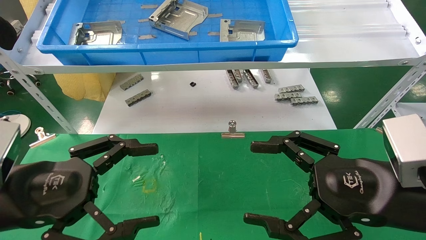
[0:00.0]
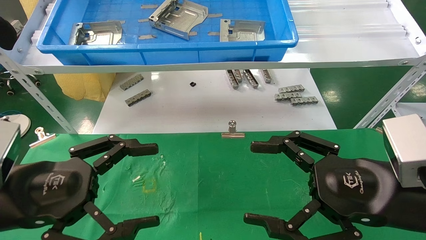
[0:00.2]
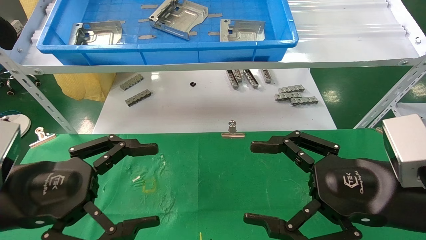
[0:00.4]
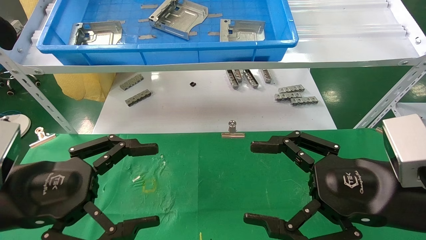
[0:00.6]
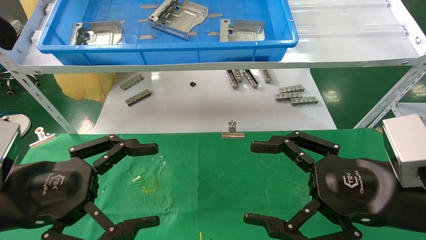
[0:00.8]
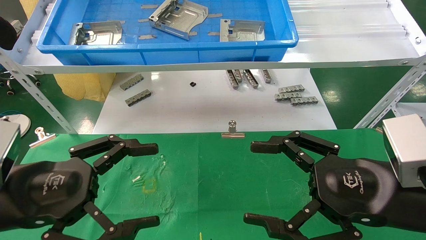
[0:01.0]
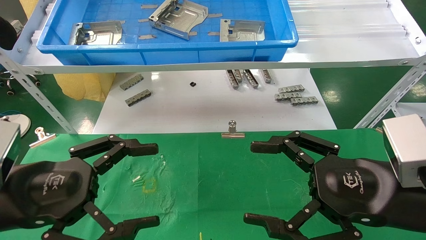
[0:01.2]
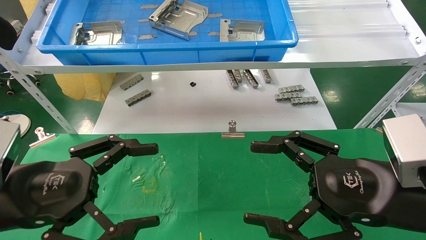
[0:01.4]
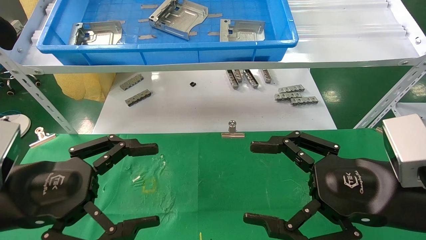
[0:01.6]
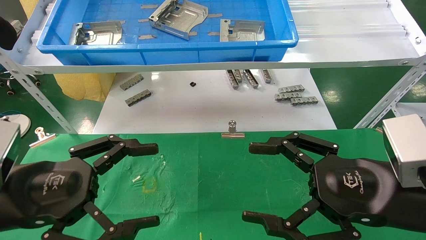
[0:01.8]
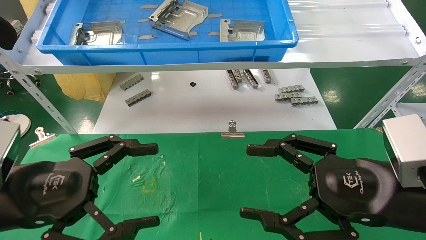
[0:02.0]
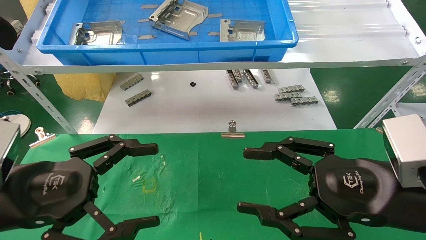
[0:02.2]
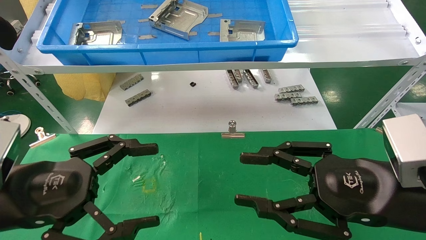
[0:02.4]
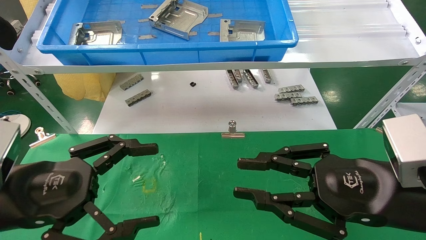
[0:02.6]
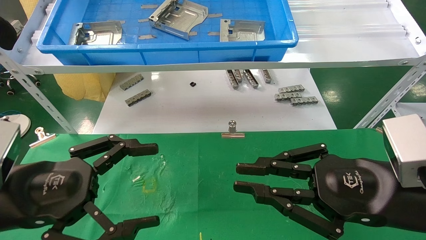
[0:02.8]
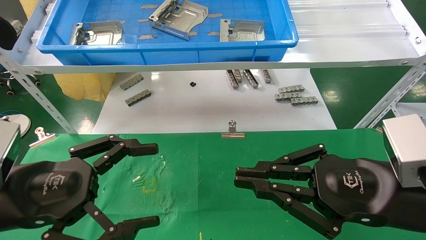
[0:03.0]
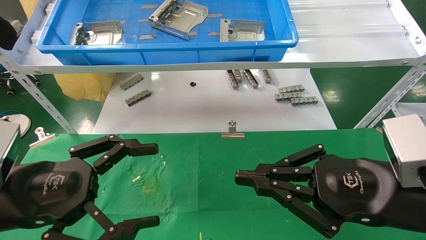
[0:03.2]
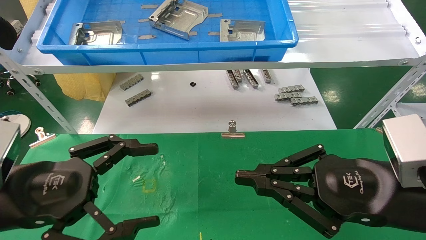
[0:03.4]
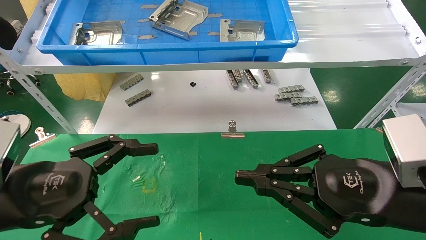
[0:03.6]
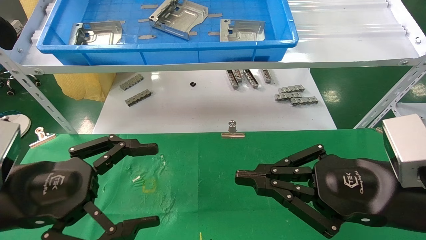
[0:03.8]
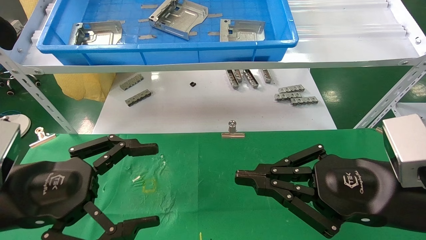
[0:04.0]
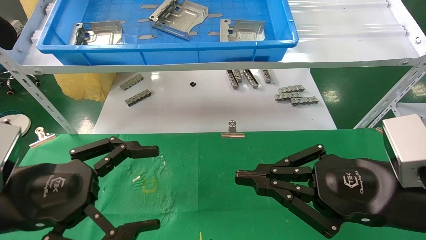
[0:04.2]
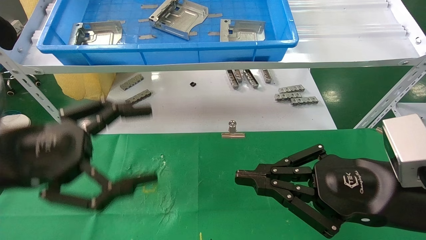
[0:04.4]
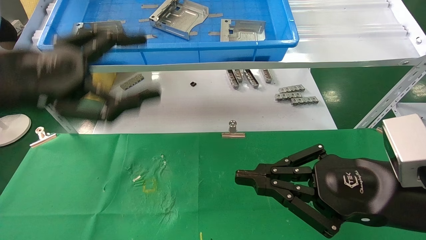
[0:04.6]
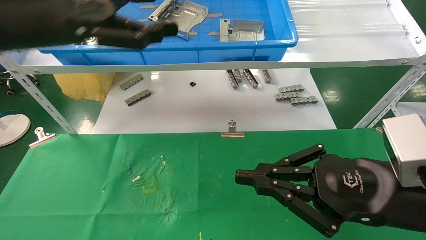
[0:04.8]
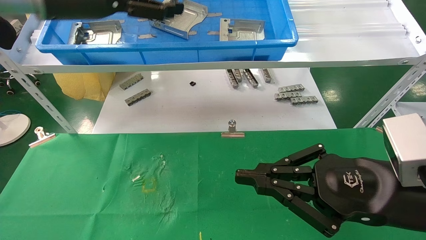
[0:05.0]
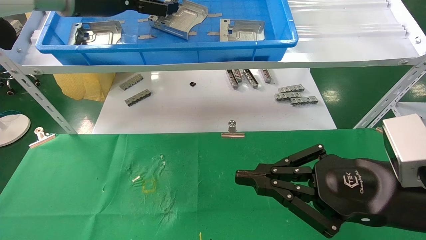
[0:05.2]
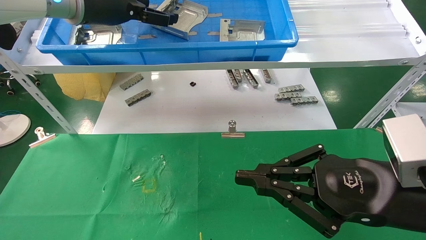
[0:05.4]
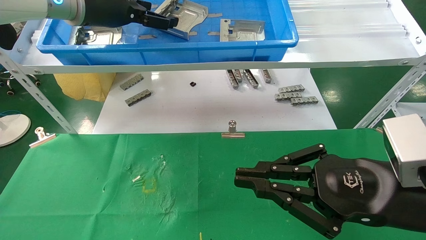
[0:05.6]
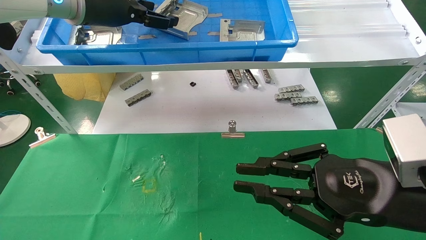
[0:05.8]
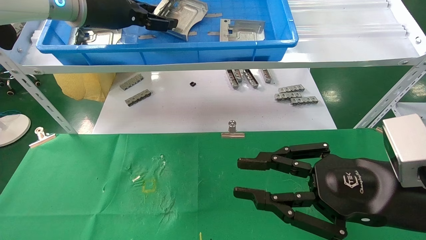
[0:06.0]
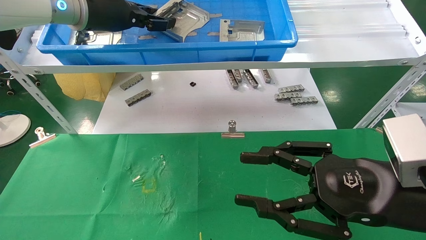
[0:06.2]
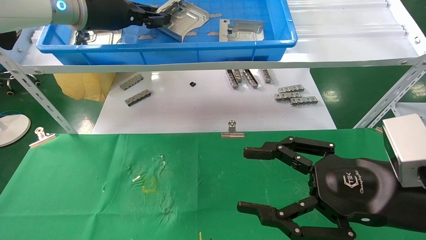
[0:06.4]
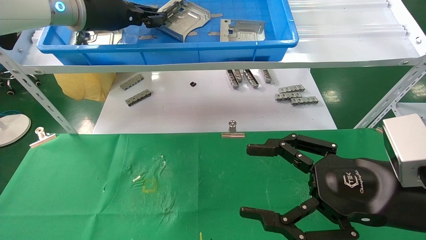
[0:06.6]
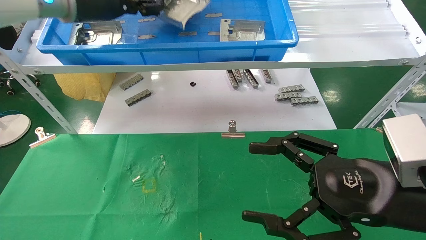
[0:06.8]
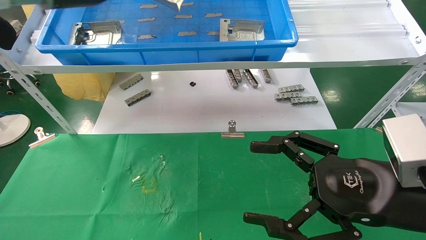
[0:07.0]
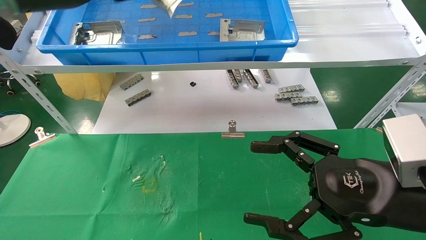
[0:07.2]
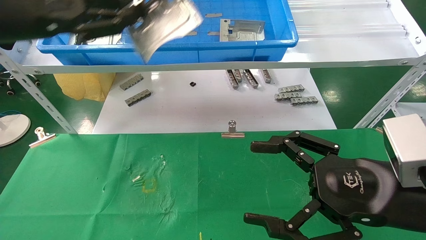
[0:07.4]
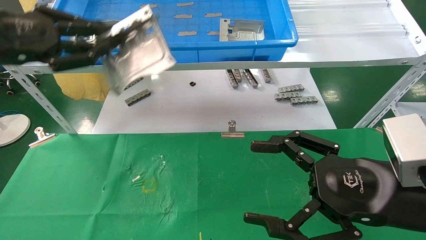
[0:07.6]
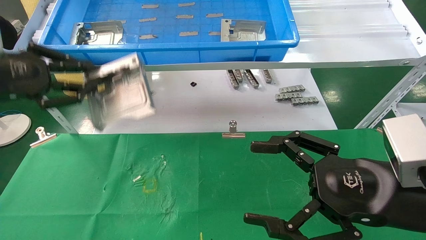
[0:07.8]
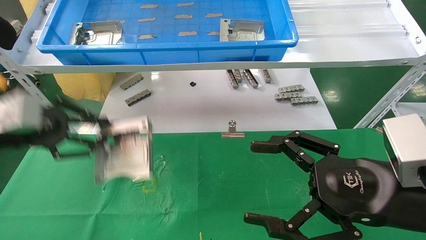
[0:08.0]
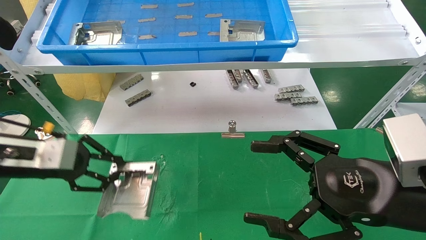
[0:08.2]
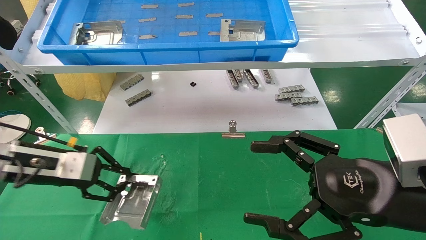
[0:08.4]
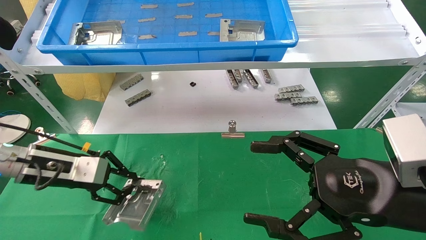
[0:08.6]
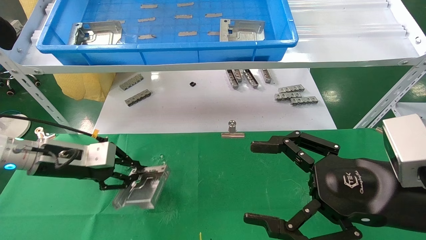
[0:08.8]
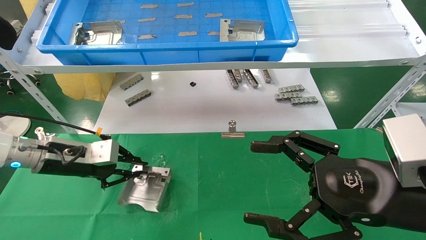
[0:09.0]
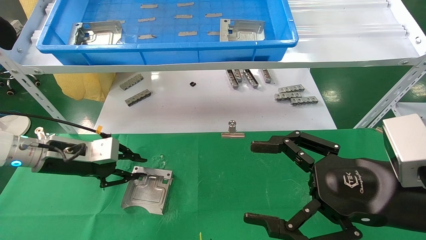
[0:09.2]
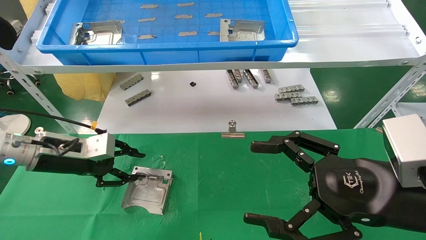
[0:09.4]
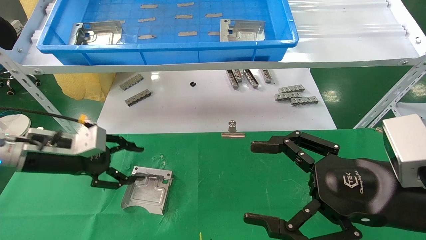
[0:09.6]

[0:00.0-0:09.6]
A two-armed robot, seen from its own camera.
Task of the whole recording: use the mechanical arm to pick up the parts and place them on the table.
Step, 0:04.4 to 0:06.4: Pick up the hard drive bracket from the feeding area.
Step, 0:06.6 to 0:09.6: Place the hard drive bracket into the box.
0:00.0 to 0:01.6: The two grippers keep their place.
0:01.6 to 0:03.2: The right gripper closes.
0:03.2 to 0:04.8: The left gripper travels upward and forward by about 20 cm.
0:04.8 to 0:06.4: The left gripper is displaced forward by roughly 10 cm, and closes up. Meanwhile the right gripper opens.
0:06.4 to 0:08.0: The right gripper opens up; the left gripper travels downward, to the left and backward by roughly 25 cm.
0:08.0 to 0:09.6: The left gripper is displaced downward and forward by approximately 10 cm, and opens up.

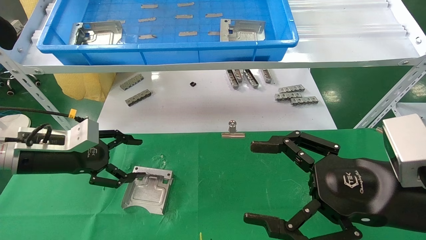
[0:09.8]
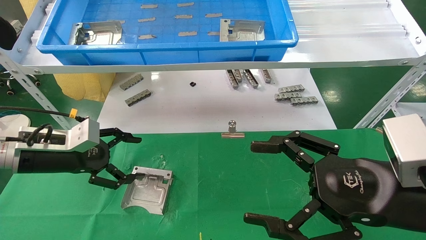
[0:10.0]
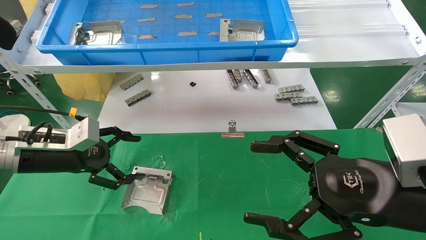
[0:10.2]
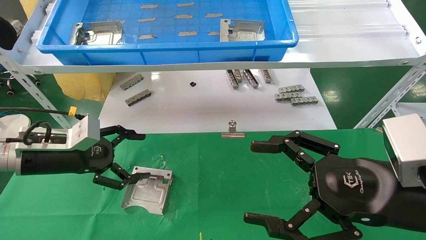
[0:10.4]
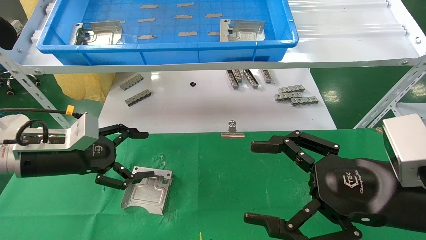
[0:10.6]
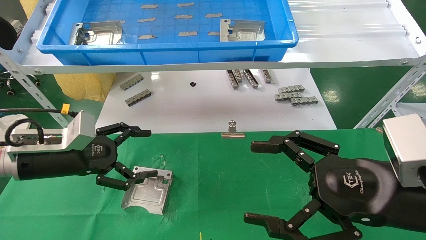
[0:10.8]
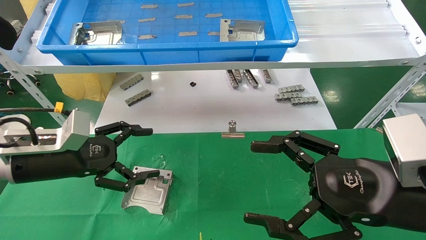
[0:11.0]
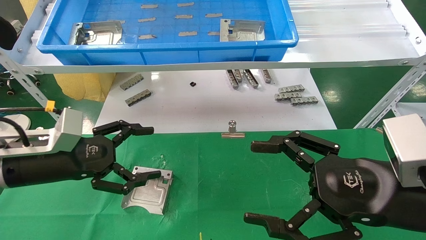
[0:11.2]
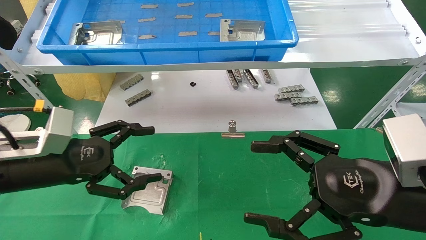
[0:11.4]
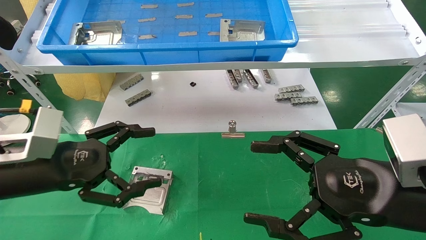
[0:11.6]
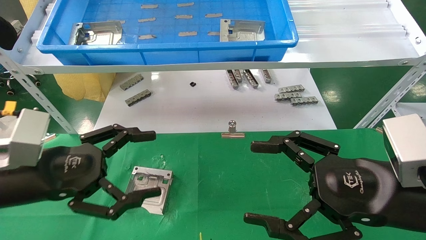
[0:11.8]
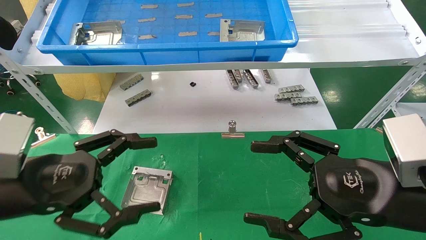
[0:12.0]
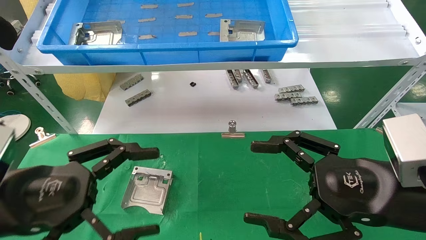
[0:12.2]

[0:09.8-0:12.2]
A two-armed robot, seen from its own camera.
Task of the whole recording: use the mechanical arm to pick up the parts and place them on the table.
0:09.8 to 0:11.0: There are only small adjustments of the grippers.
0:11.0 to 0:12.2: The left gripper is displaced backward by some 10 cm.

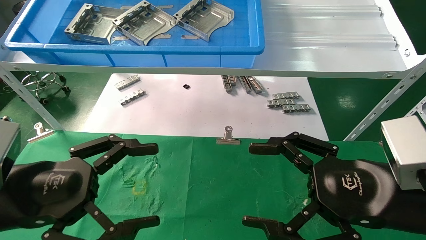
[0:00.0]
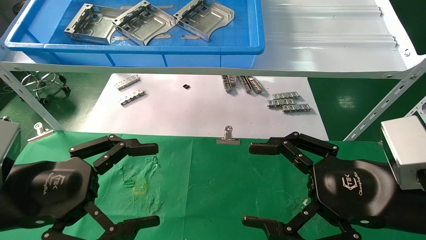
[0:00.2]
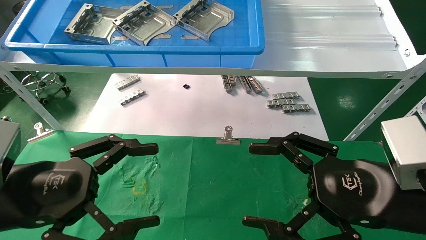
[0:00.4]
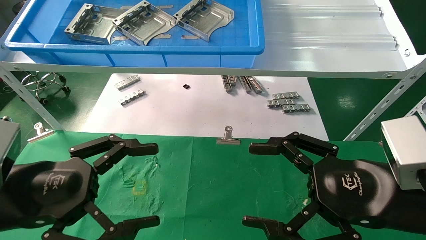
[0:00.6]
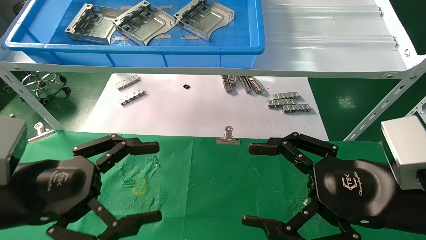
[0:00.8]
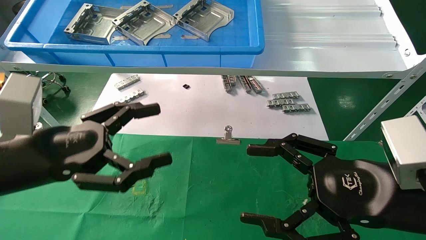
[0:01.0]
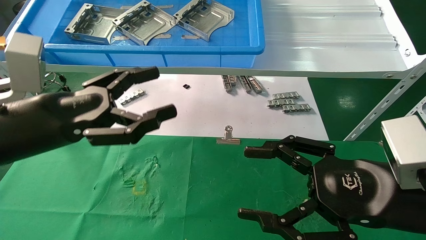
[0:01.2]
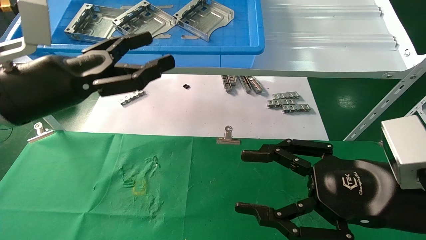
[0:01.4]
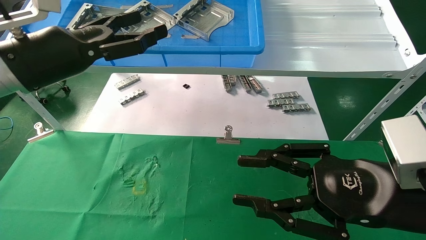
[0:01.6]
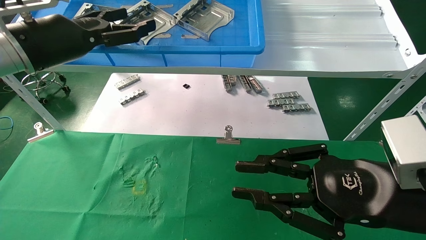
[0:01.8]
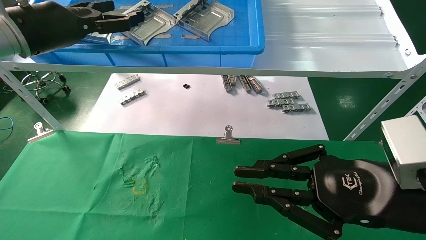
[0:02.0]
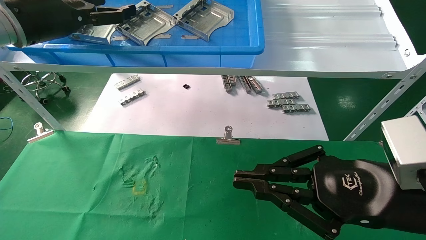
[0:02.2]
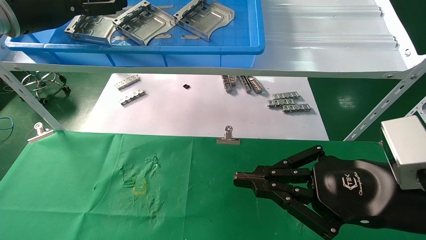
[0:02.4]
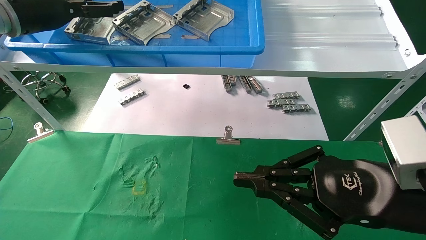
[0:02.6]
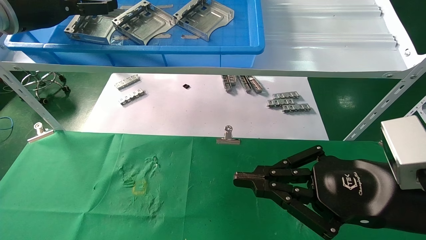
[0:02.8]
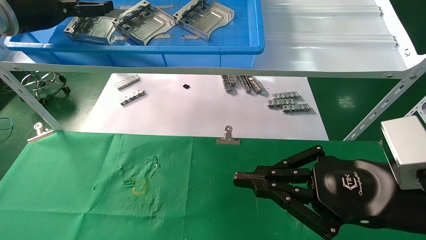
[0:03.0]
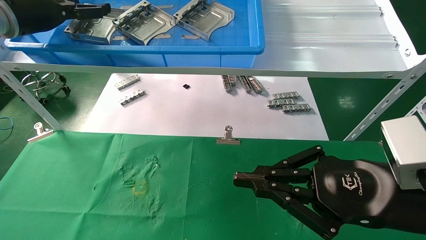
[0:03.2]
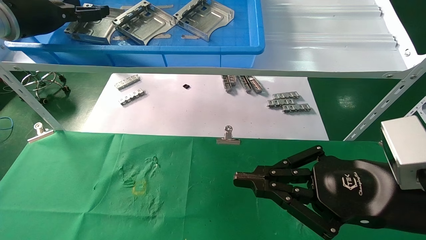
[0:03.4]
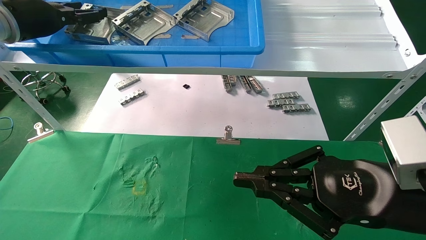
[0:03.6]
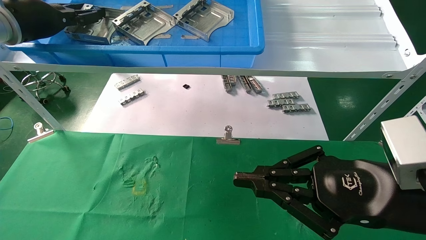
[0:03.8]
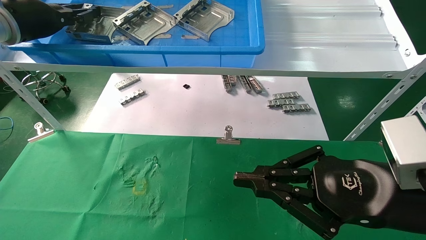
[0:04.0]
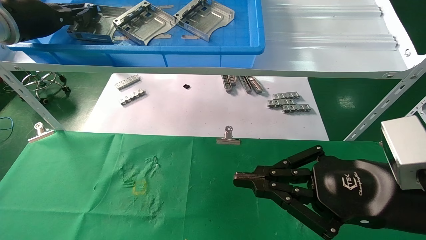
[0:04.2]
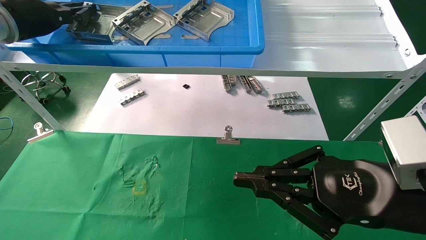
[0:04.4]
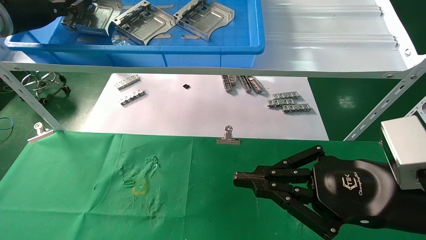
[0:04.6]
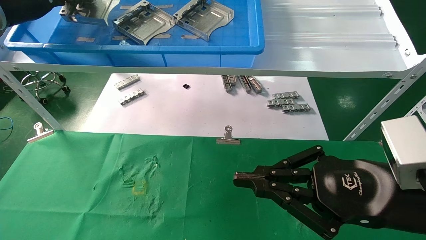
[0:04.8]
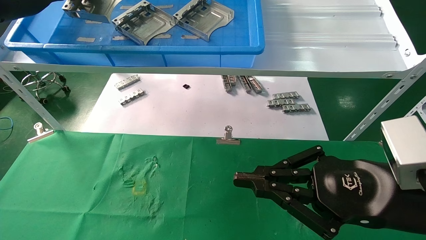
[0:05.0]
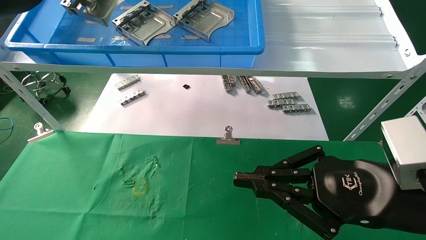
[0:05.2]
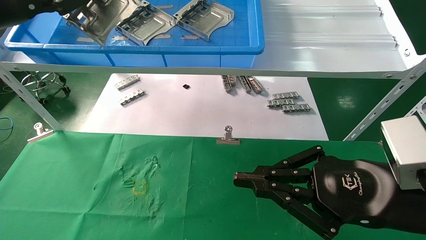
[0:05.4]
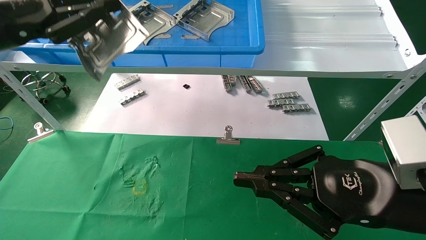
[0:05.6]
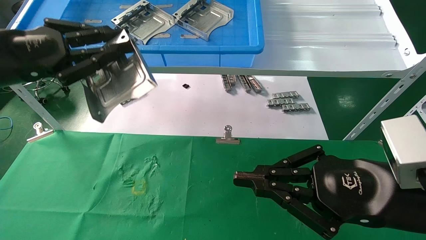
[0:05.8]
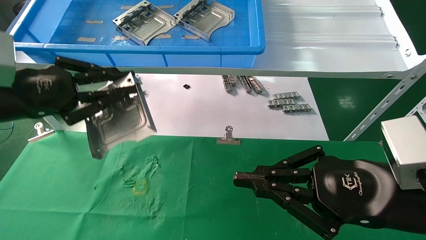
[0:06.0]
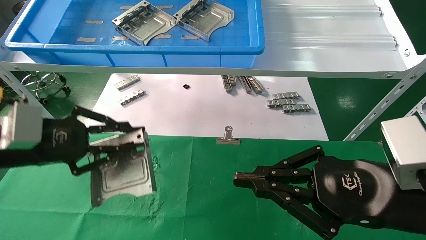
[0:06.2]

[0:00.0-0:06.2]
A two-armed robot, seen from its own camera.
Task of the whole recording: use the mechanical arm to pick up the parts and place them on the table.
Step, 0:01.2 to 0:04.2: Pick up the hard drive bracket from the feeding area.
0:00.0 to 0:01.6: The left gripper moves forward and upward, some 20 cm. The right gripper closes its fingers.
0:01.6 to 0:03.2: The right gripper closes up. Meanwhile the left gripper heads forward, upward and to the left, covering about 15 cm.
0:03.2 to 0:04.6: The left gripper closes.
0:04.6 to 0:06.2: The left gripper travels downward and backward by some 25 cm.
